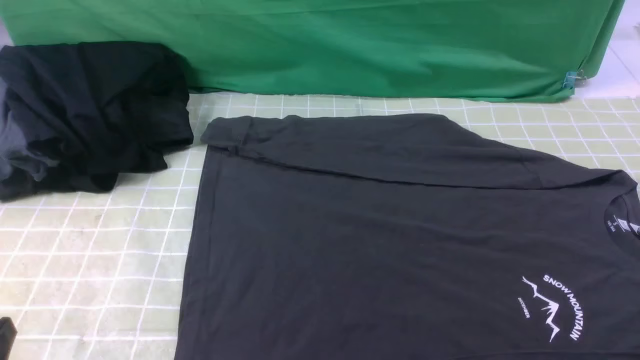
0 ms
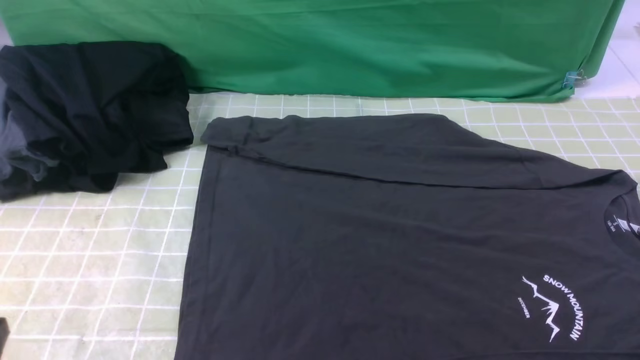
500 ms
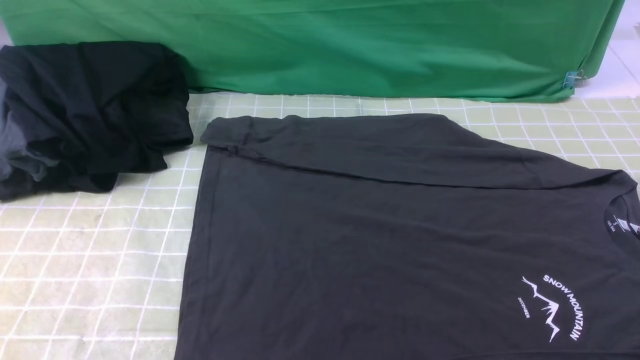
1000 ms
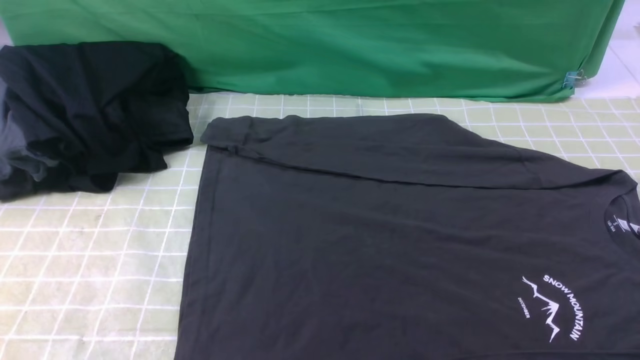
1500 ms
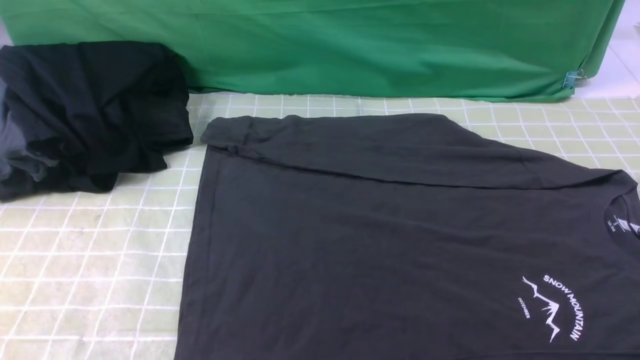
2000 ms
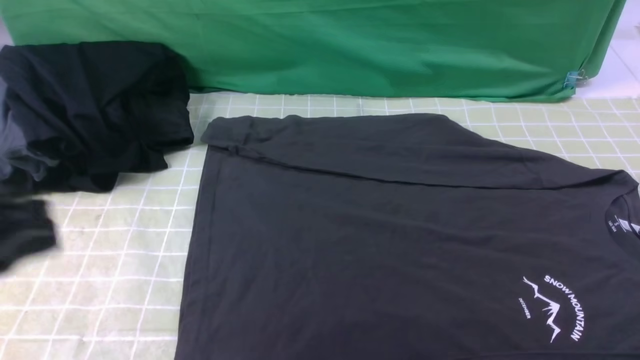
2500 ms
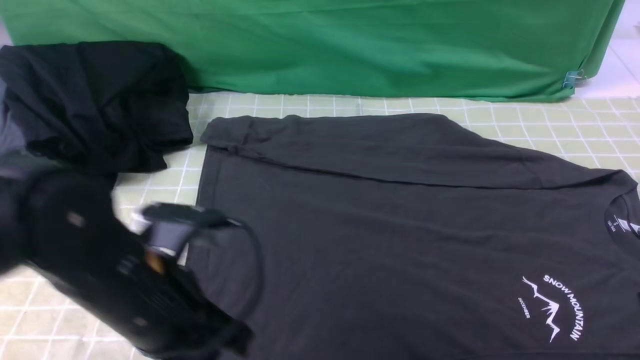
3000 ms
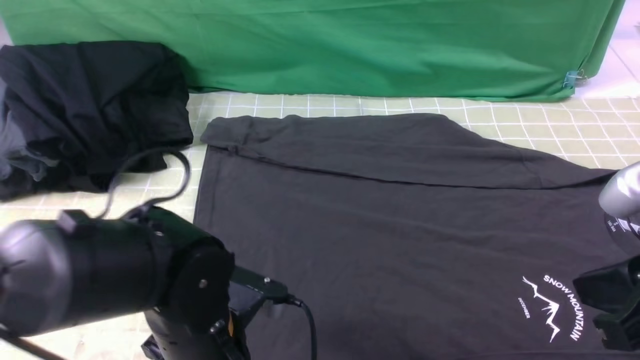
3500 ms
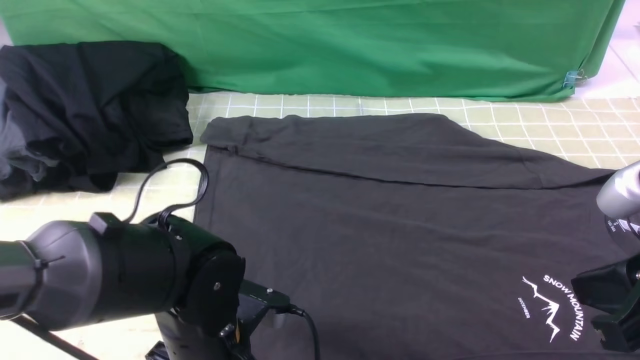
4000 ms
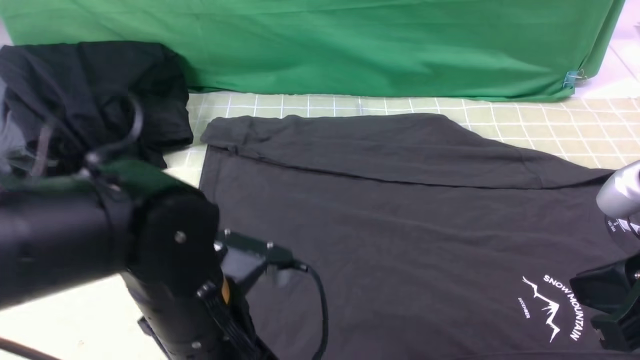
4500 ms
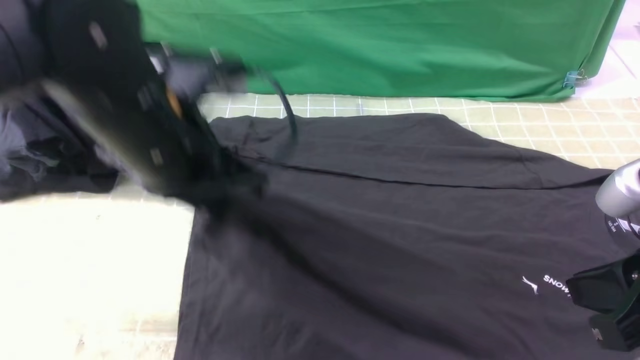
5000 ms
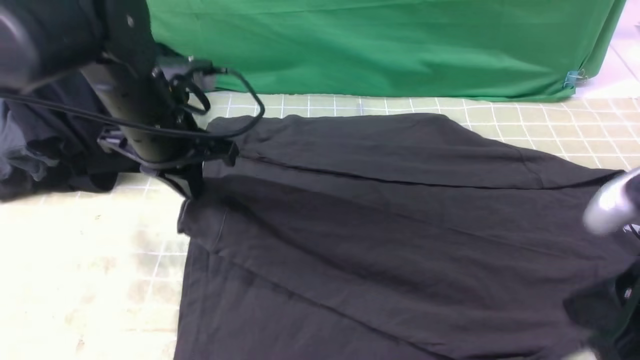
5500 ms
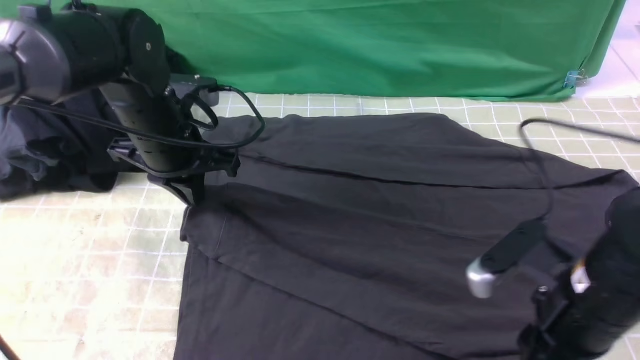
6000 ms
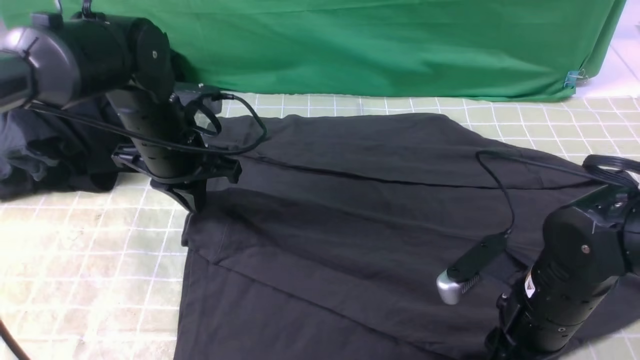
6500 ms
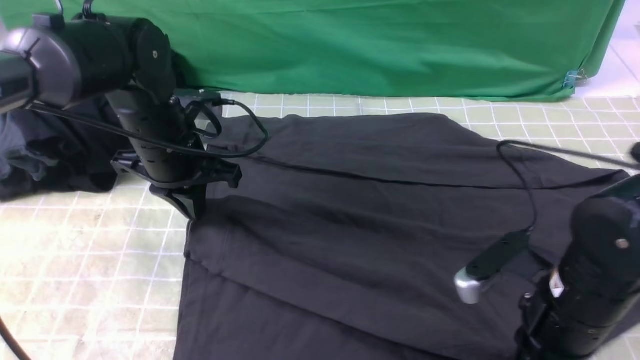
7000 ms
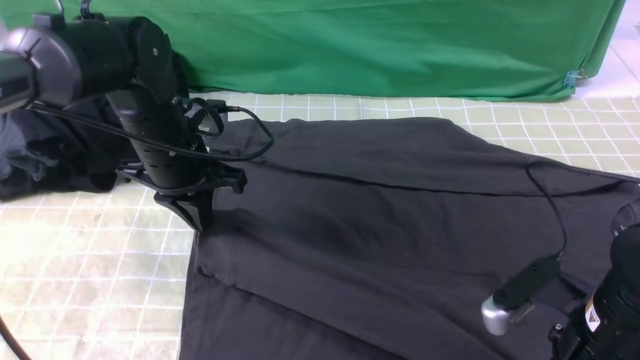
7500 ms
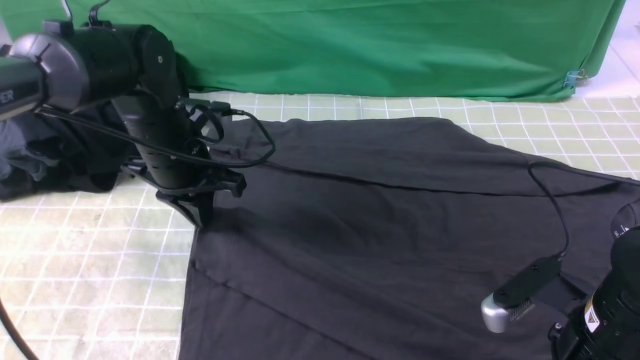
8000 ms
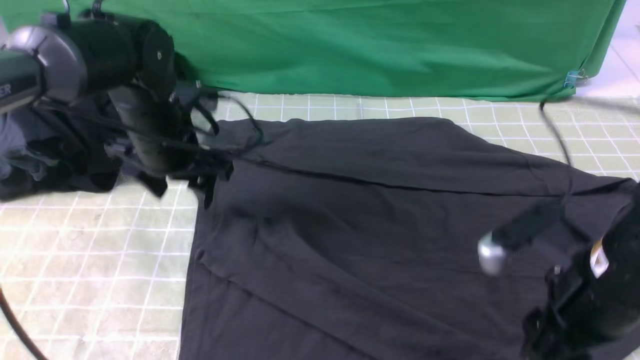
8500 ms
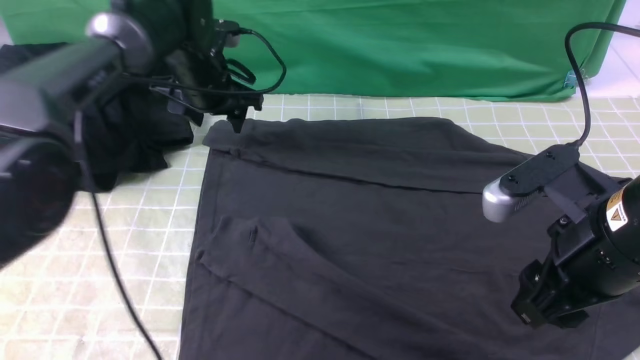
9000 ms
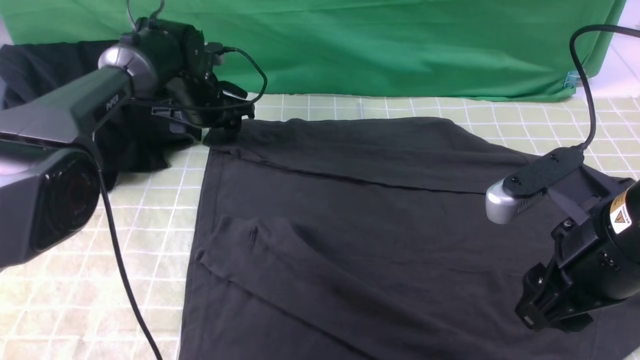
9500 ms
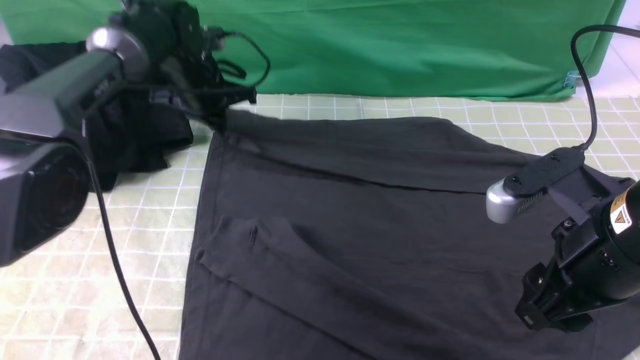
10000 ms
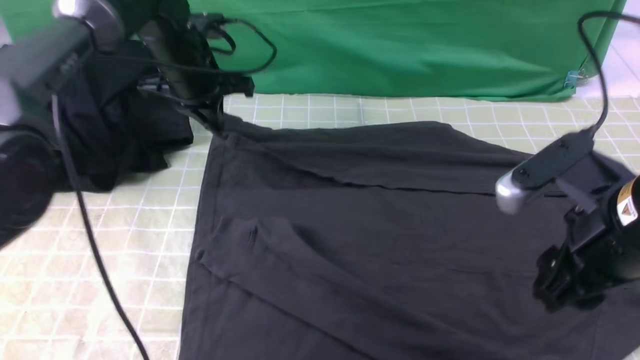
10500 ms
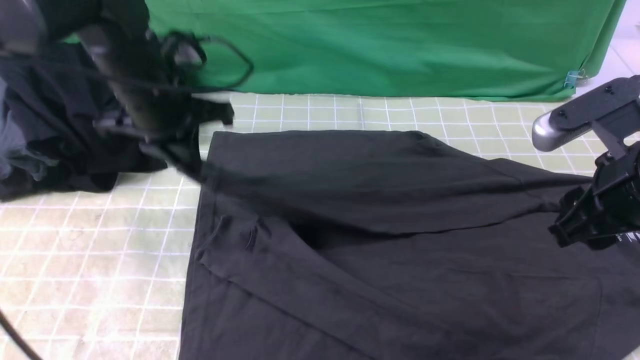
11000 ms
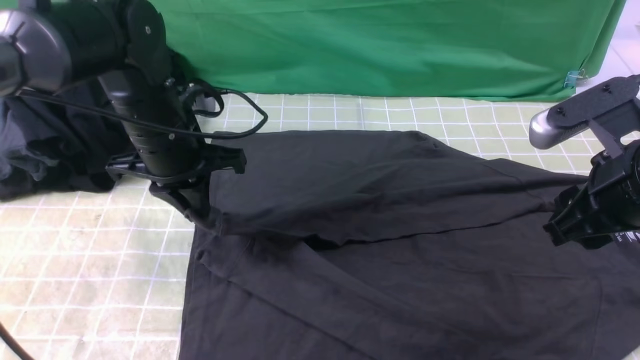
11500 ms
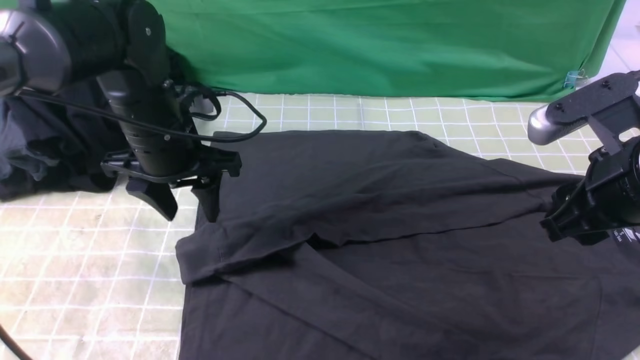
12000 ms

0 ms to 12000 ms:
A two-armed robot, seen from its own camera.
Step, 0 ms to 3500 ms: use the left arm to clamp the cuff closest to it.
Step, 4000 ms to 8500 ms: use the left arm to drag and place the cuff at the centered position on the left edge of the fabric.
Step, 9000 ms to 9500 ms: use the left arm to clamp the cuff farthest from it.
Step, 10000 ms to 12000 ms: use the left arm to drag and drop the cuff onto the cuff closest to the left arm.
2000 ms to 4000 ms: The left gripper moves to the right, downward and forward, some 25 cm, and opens; the right gripper moves upward, forward and to the left, about 15 cm, and closes up.
4000 ms to 6000 ms: The right gripper shifts roughly 10 cm downward and forward, and opens; the left gripper is displaced forward and to the left by roughly 20 cm, and closes.
6000 ms to 8000 ms: The right gripper closes, then reopens.
8000 ms to 10000 ms: The left gripper is displaced forward by about 15 cm, and opens, then closes again. The right gripper heads upward, covering roughly 10 cm.
10000 ms to 12000 ms: The left gripper moves backward, approximately 15 cm, and opens, while the right gripper shifts by about 5 cm.

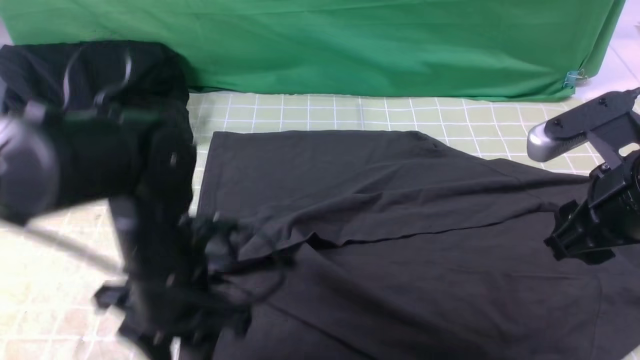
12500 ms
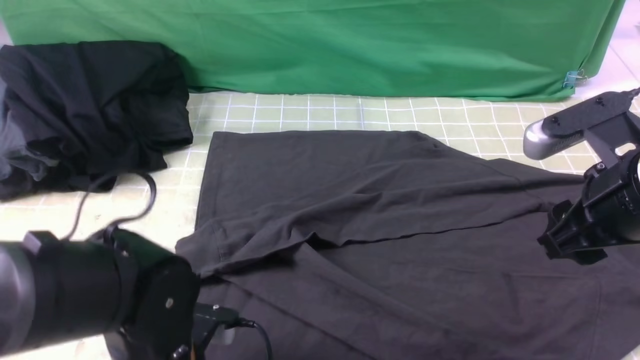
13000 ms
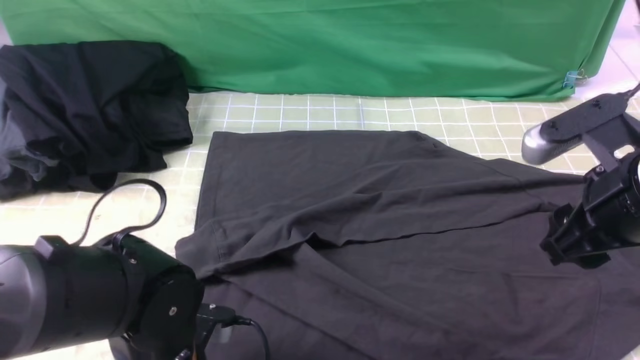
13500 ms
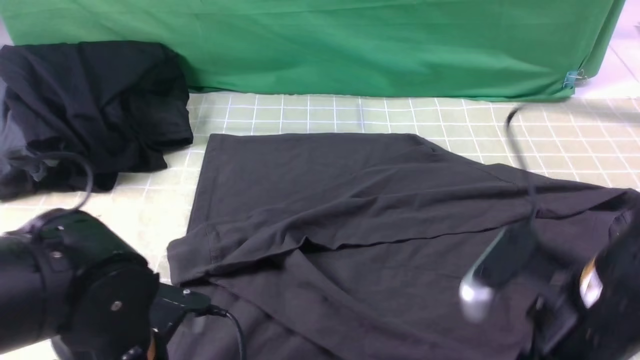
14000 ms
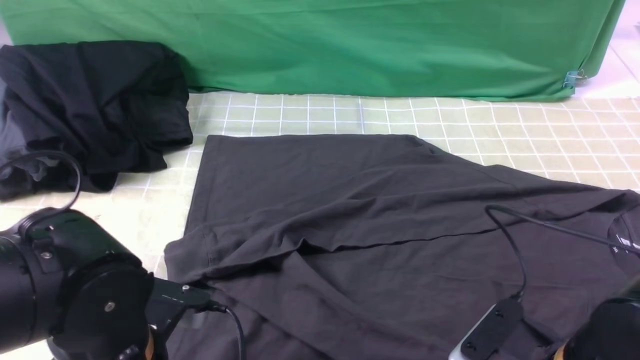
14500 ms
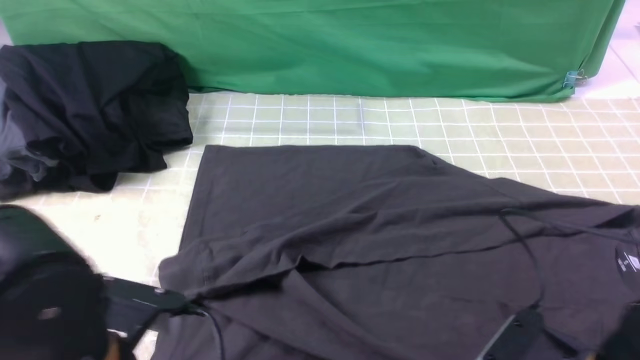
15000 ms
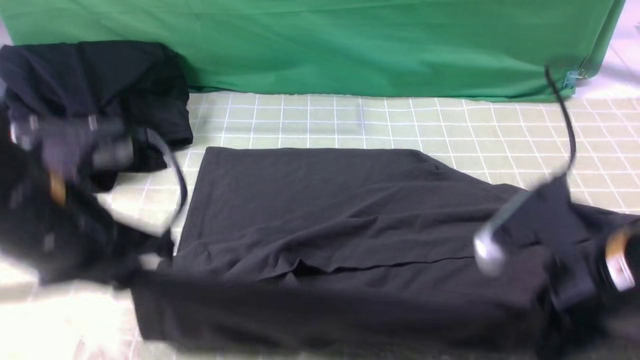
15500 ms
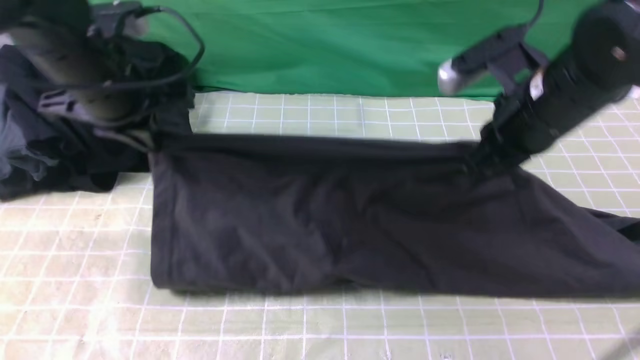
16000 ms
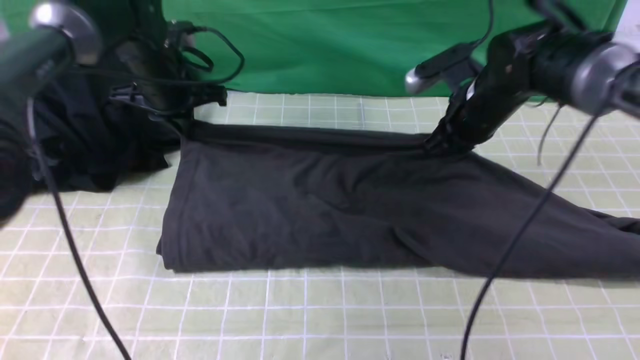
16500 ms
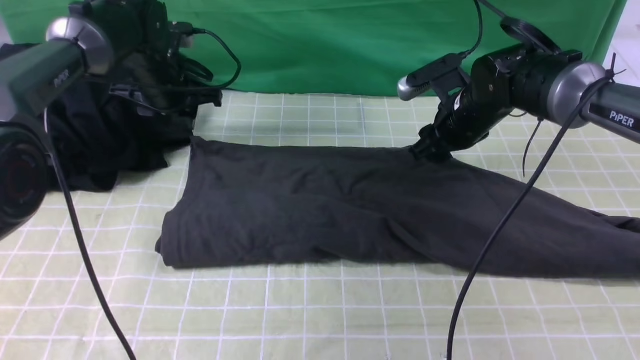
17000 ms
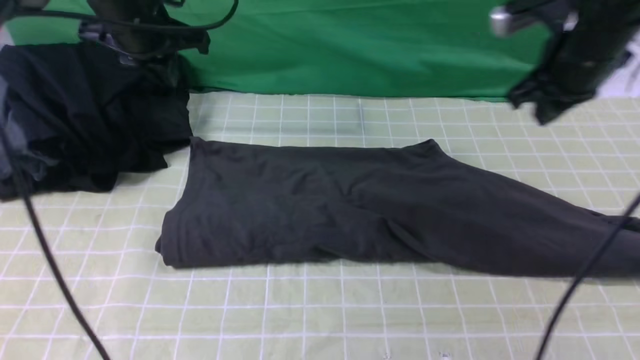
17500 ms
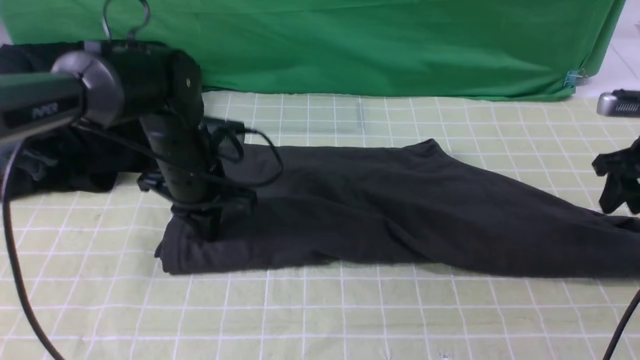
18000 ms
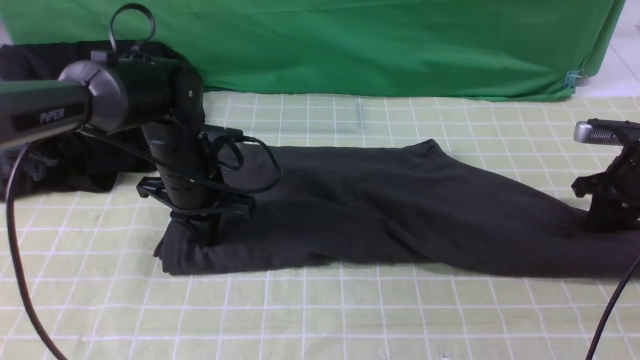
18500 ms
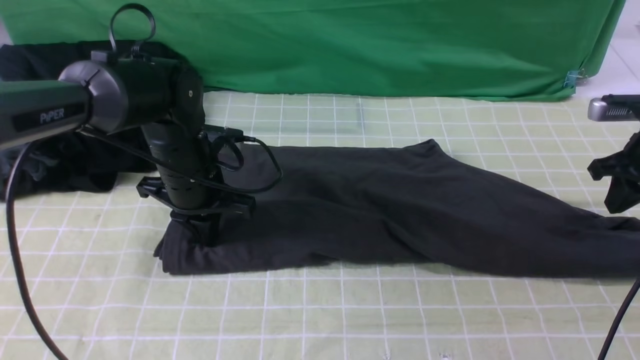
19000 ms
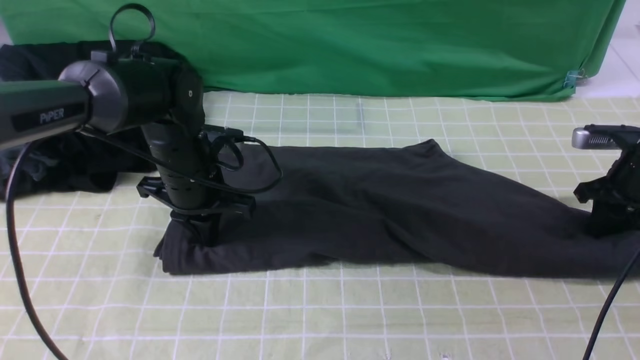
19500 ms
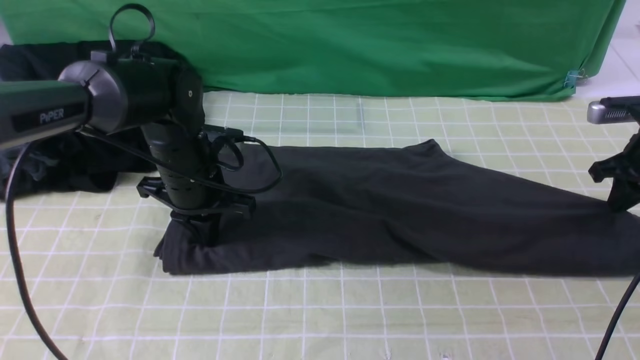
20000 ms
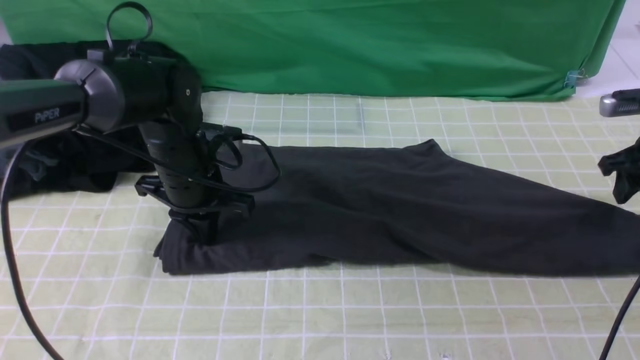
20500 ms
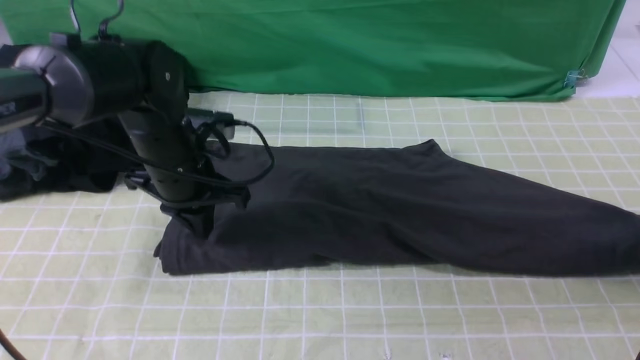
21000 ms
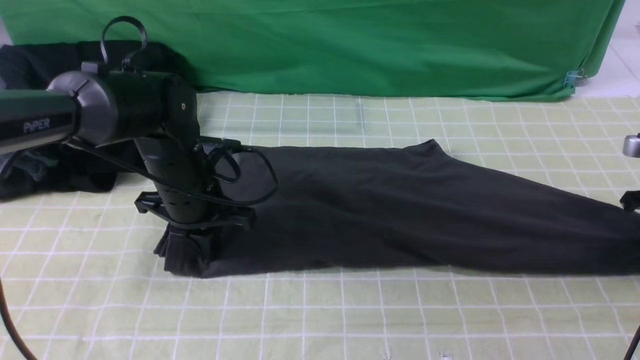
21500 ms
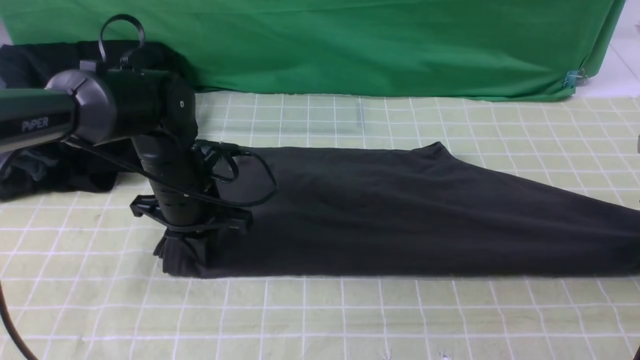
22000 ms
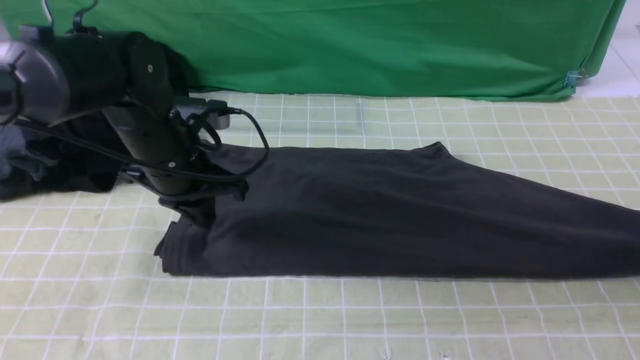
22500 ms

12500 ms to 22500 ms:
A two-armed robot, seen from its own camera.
Step, 12500 ms to 14500 ms: use both arms simultaneously to clamp the lower edge of the clothing fabric.
Step, 15000 ms to 17000 ms: use both arms to drag the lower edge of the fabric forward and fold it over the upper edge.
12500 ms to 14500 ms: The right gripper is displaced downward and backward by about 15 cm. The left gripper shifts about 10 cm backward, and closes its fingers.
14500 ms to 16500 ms: The grippers both shift forward by approximately 30 cm. The right gripper closes.
16500 ms to 18500 ms: The right gripper goes approximately 20 cm to the right, and opens and closes again. Meanwhile the left gripper travels backward, downward and to the right by roughly 15 cm, and opens, then closes once more.
18500 ms to 20500 ms: The grippers stay close to where they were, moving slightly.
20500 ms to 22500 ms: The right gripper shifts by some 5 cm, and opens up.
